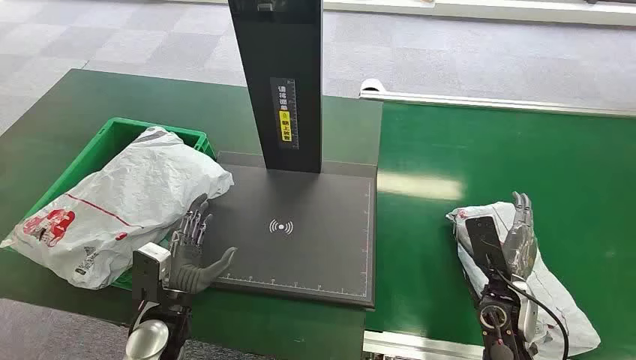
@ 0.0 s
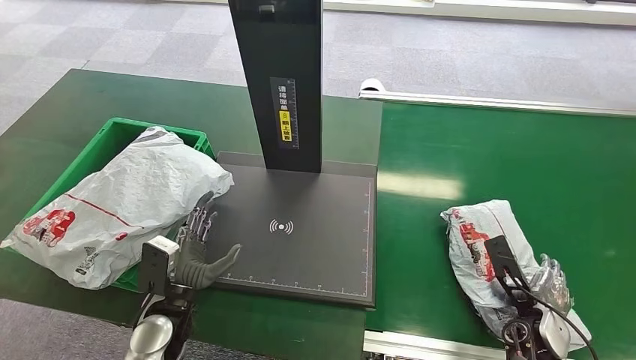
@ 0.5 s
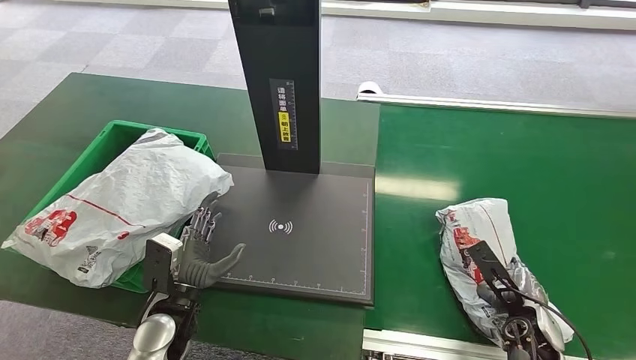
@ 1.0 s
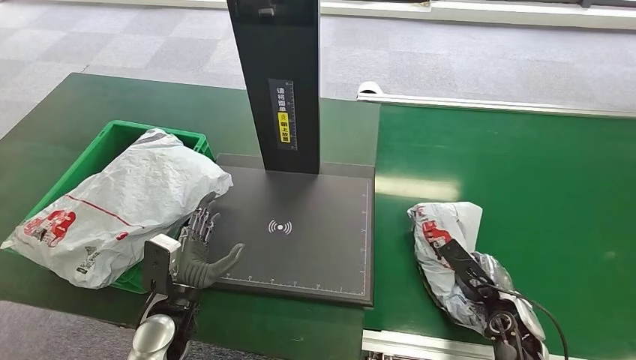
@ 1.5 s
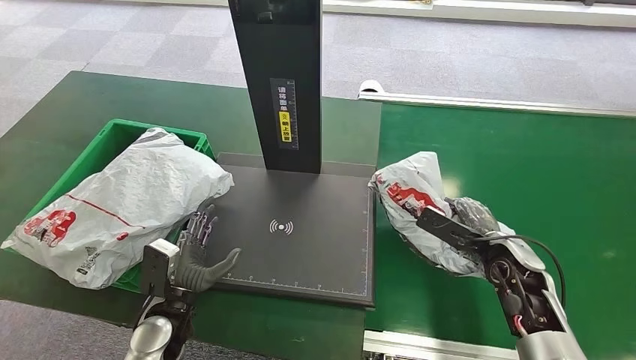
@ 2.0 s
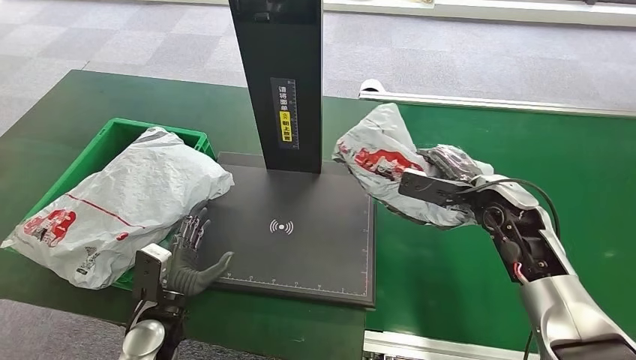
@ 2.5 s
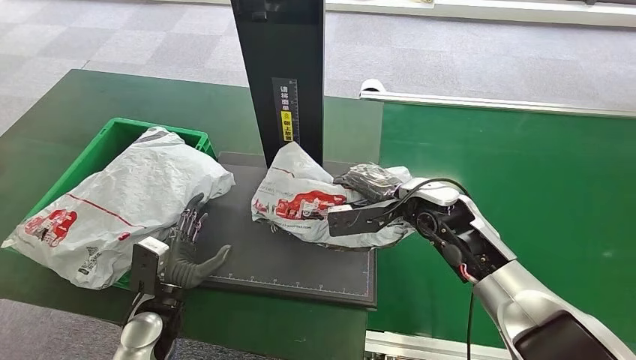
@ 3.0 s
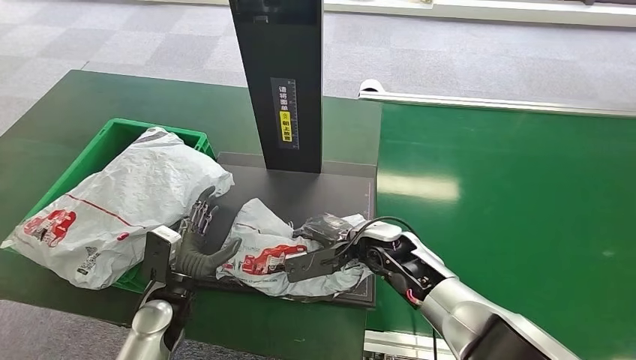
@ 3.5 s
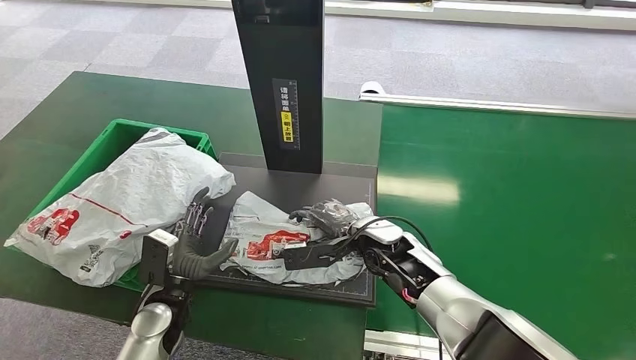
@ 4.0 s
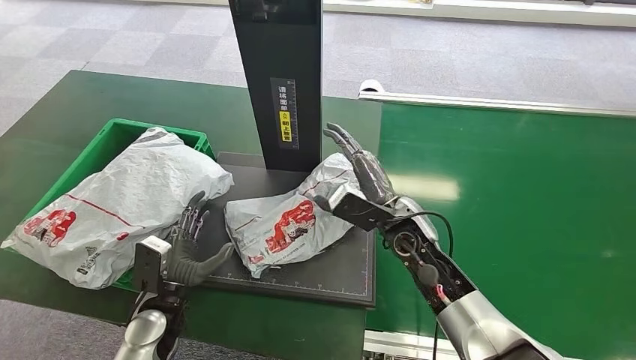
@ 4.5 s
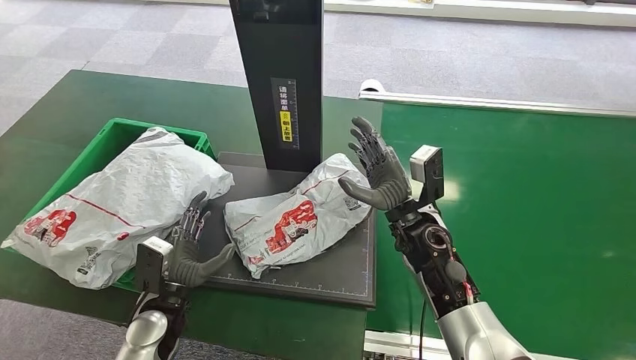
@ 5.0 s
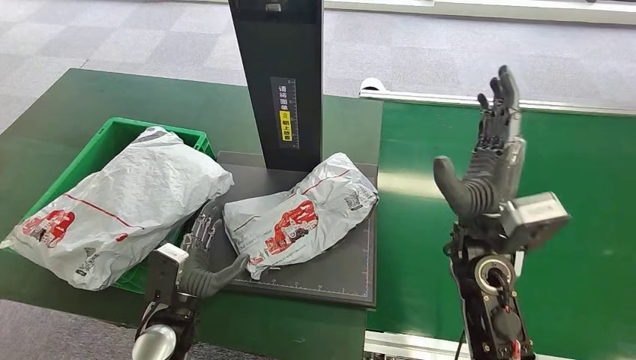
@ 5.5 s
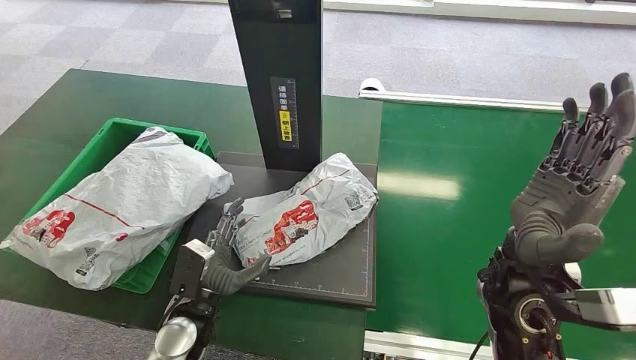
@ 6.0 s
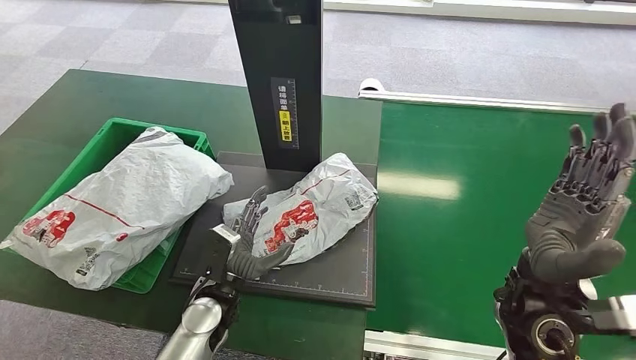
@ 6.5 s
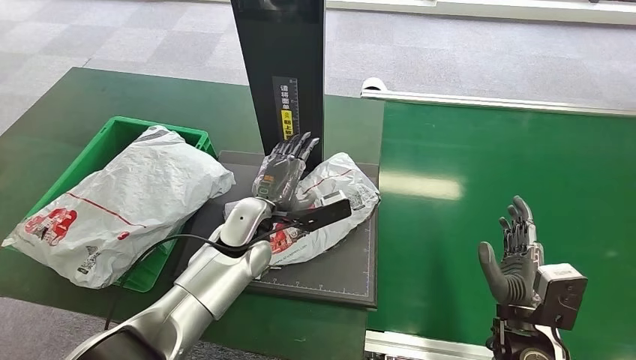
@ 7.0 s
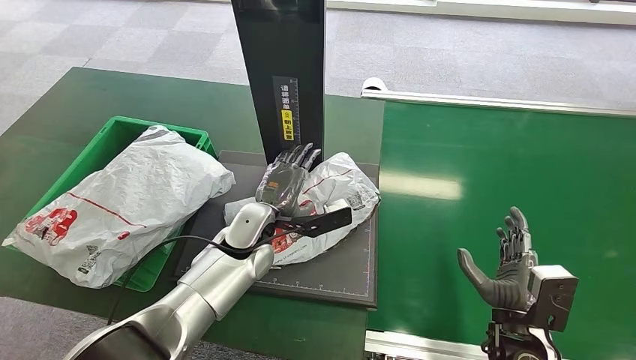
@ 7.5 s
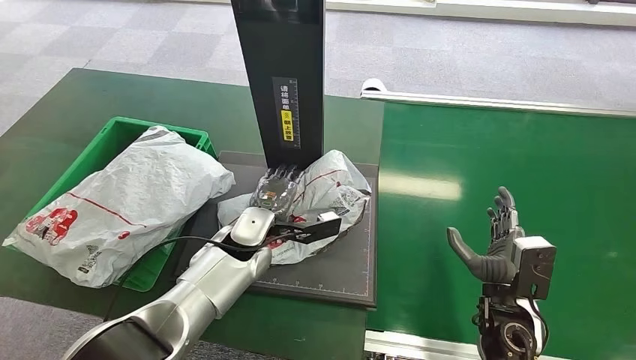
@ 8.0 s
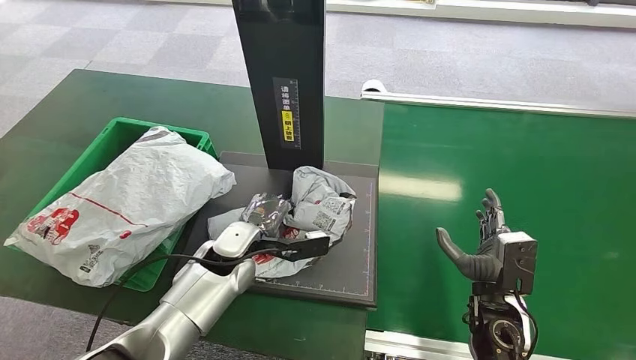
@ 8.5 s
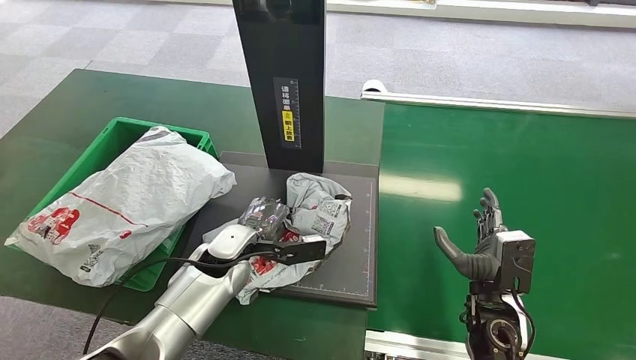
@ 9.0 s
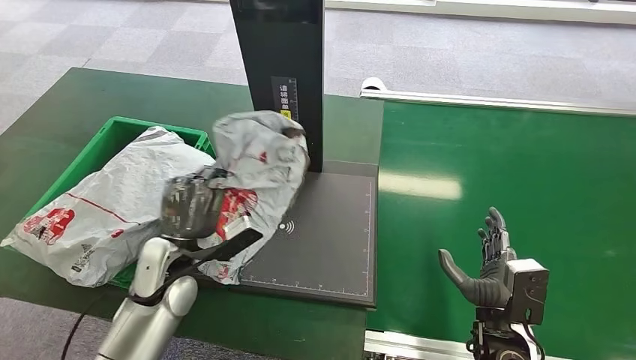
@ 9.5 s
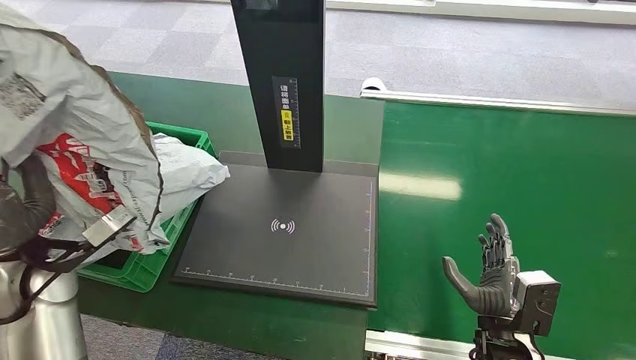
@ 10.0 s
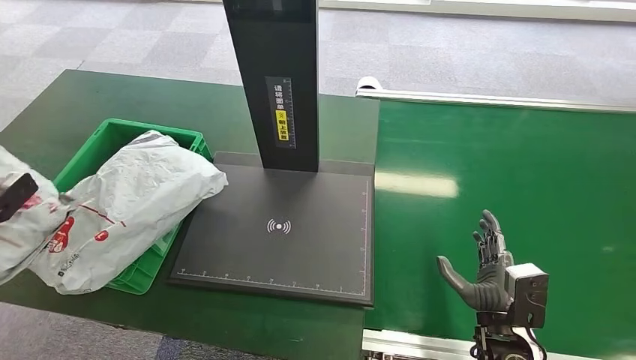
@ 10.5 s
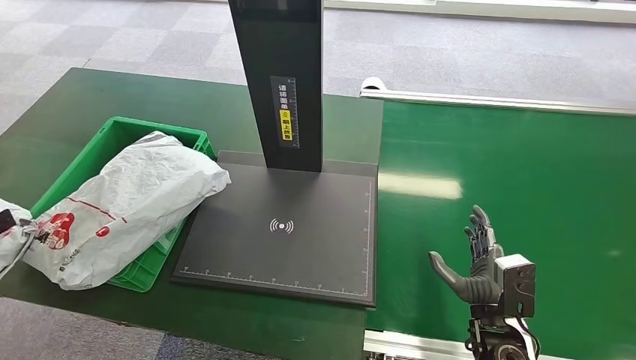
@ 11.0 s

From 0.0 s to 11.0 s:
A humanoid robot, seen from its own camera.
Step, from 0.0 s to 2.0 s: Pick up the package from the conveyor belt.
Step, from 2.5 s to 4.5 s: Place the package onto the inbound machine.
Step, from 6.5 s to 9.5 s: Pick up the package from the inbound machine.
From 2.0 s to 3.5 s: The right hand goes roughly 20 cm to the left.
From 5.5 s to 7.5 s: The right hand goes about 20 cm downward, backward and to the right. The left hand shifts roughly 20 cm forward, to the right and upward.
From 7.5 s to 9.0 s: The right hand moves roughly 5 cm. The left hand ends up roughly 5 cm from where it was.

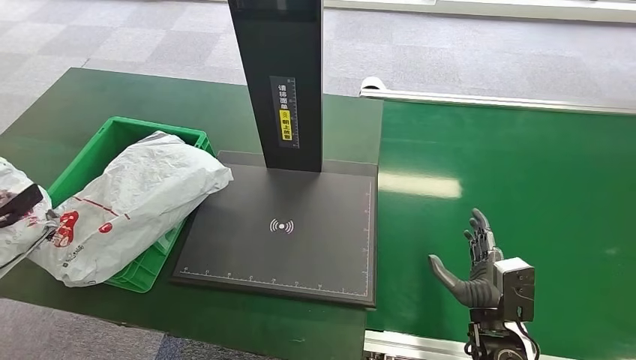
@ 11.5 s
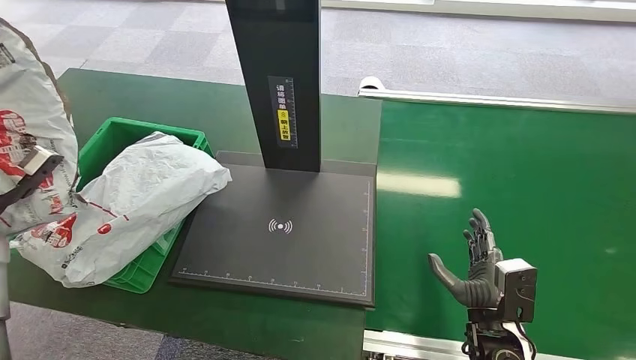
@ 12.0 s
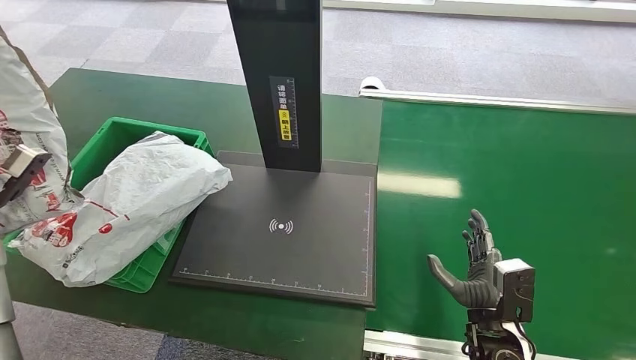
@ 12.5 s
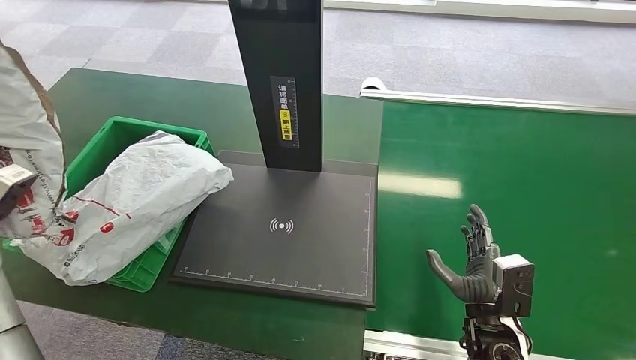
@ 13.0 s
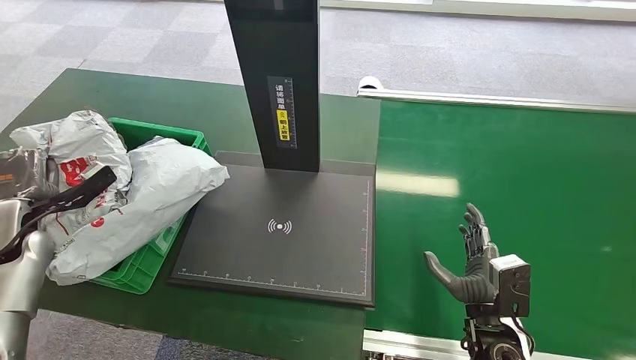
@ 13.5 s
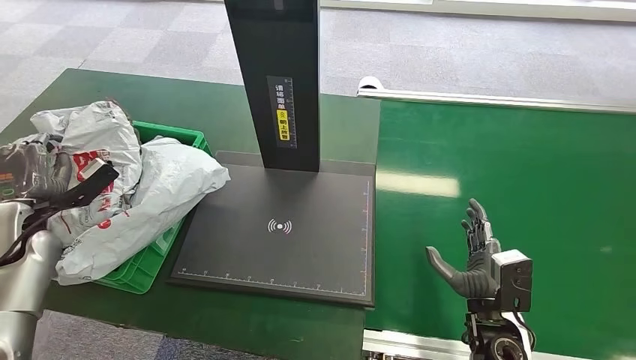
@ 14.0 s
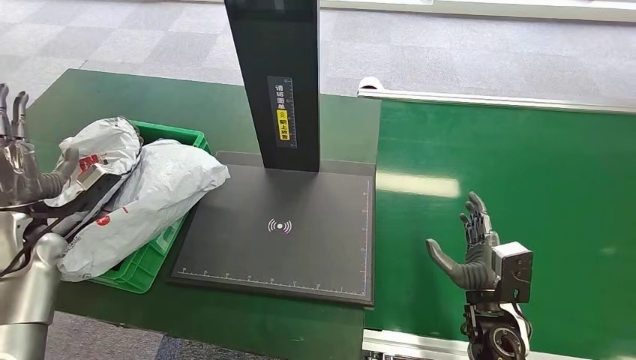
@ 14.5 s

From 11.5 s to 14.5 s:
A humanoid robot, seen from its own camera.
Step, from 11.5 s to 14.5 s: Place the package into the parcel locker.
From 11.5 s to 13.0 s: The left hand heads to the right and upward, covering approximately 15 cm.
From 13.0 s to 14.5 s: The left hand goes some 5 cm downward.

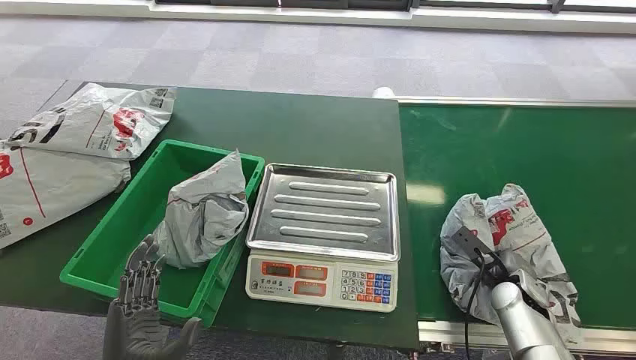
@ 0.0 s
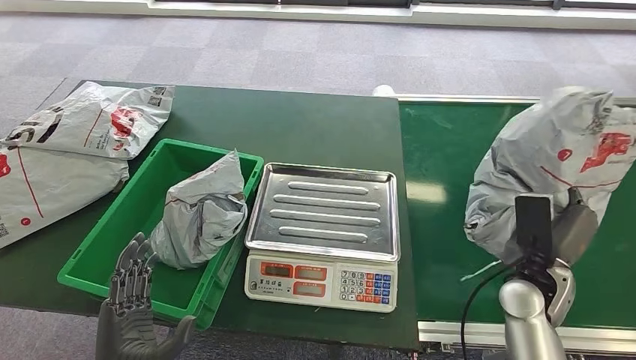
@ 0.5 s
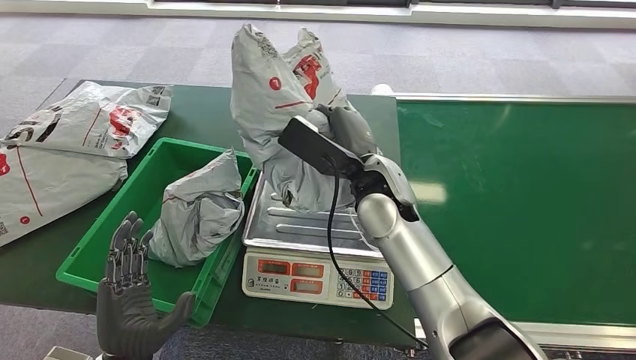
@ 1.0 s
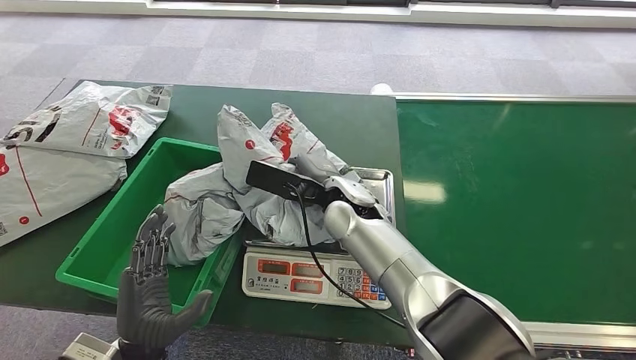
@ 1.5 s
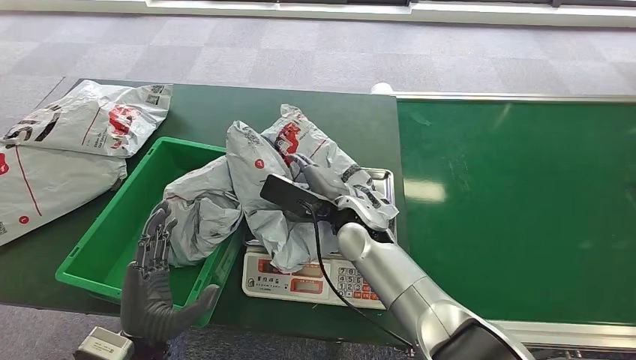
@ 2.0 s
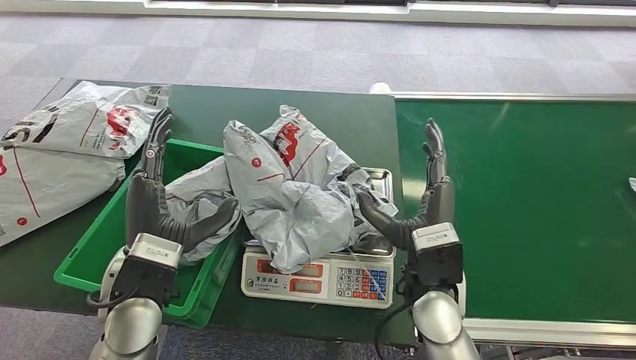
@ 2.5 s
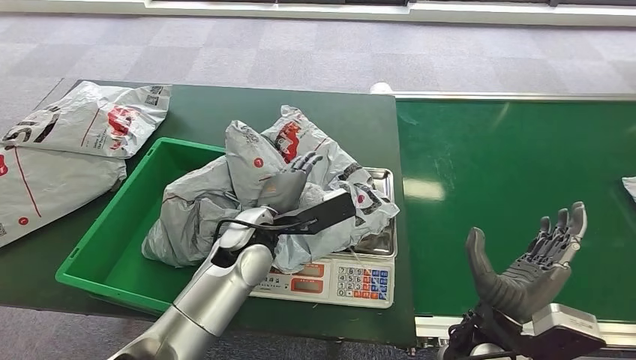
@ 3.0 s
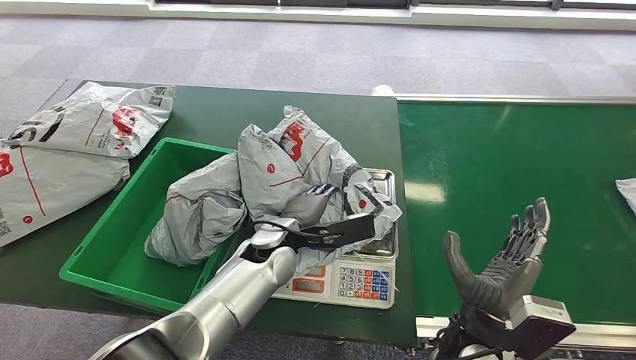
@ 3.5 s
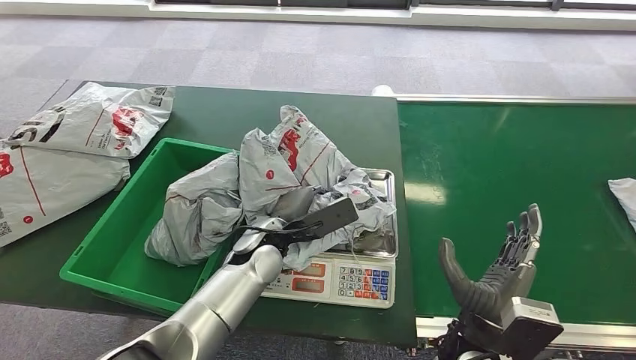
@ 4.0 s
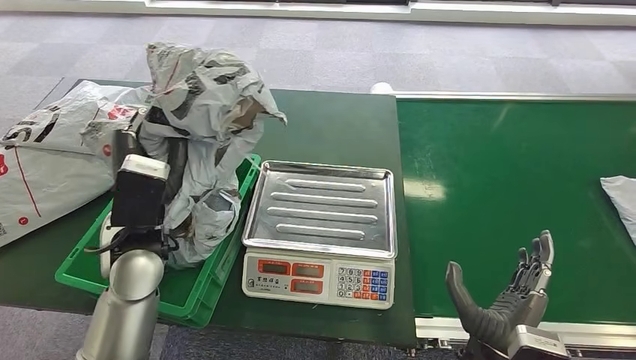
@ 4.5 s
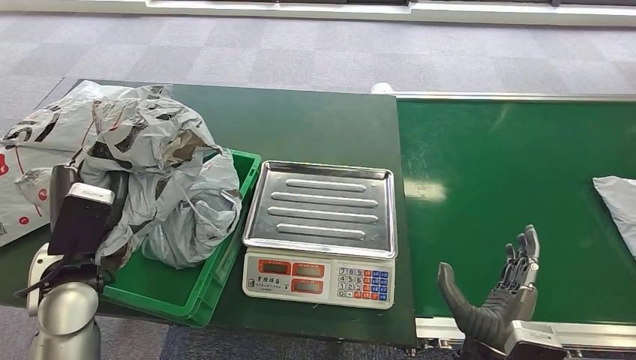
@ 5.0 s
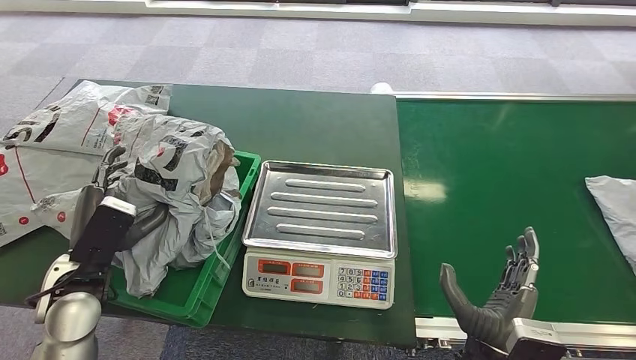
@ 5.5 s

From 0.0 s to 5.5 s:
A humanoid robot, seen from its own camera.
Step, from 0.0 s to 0.5 s: Pick up the package from the conveyor belt.
Step, from 1.0 s to 2.5 s: Place the package onto the inbound machine.
Step, from 3.0 s to 4.0 s: Pick up the package from the inbound machine.
Step, from 5.0 s to 5.5 s: Place the package into the parcel locker.
